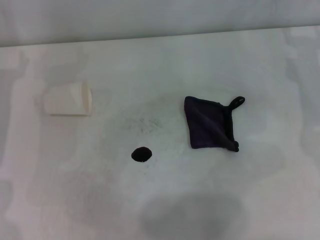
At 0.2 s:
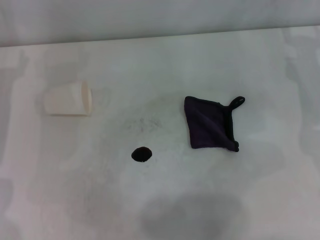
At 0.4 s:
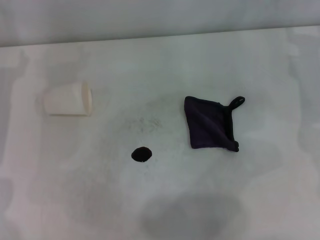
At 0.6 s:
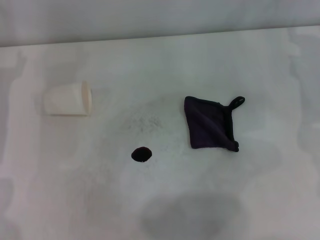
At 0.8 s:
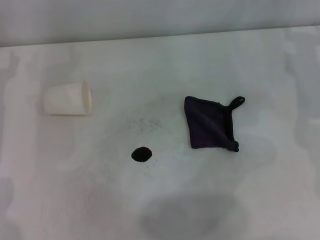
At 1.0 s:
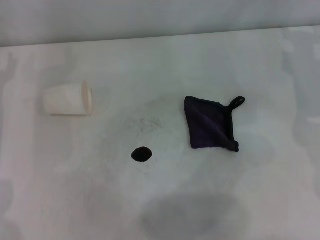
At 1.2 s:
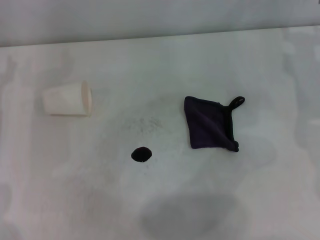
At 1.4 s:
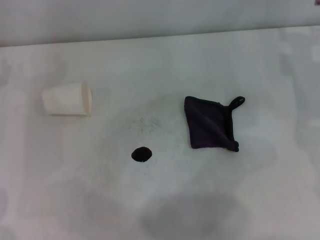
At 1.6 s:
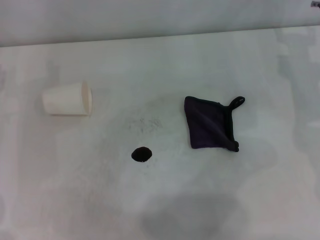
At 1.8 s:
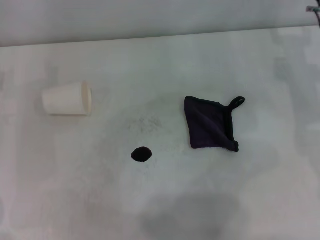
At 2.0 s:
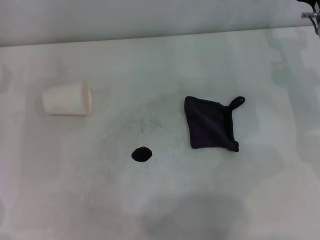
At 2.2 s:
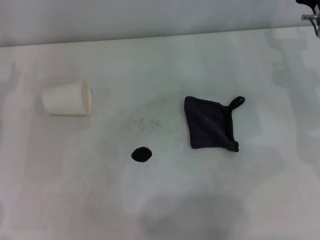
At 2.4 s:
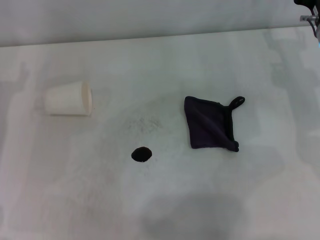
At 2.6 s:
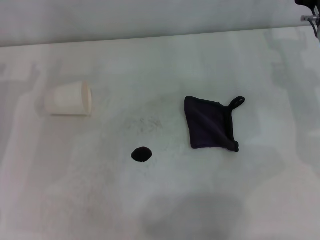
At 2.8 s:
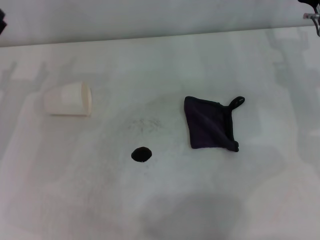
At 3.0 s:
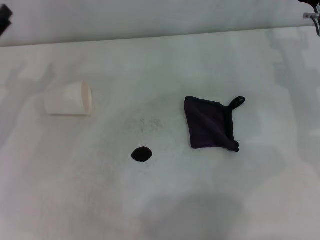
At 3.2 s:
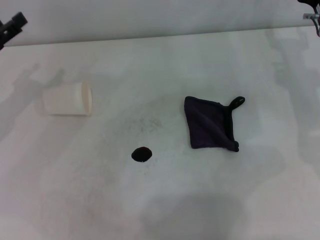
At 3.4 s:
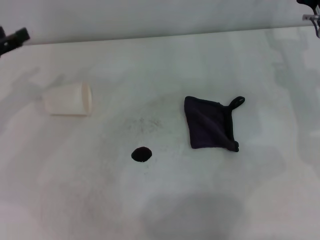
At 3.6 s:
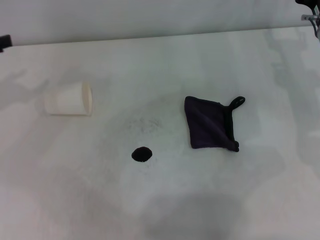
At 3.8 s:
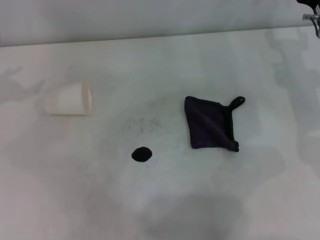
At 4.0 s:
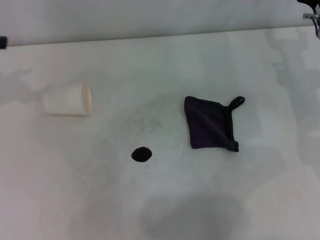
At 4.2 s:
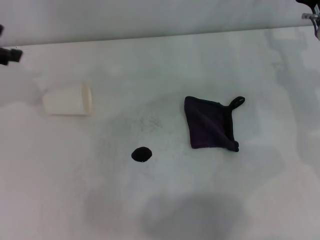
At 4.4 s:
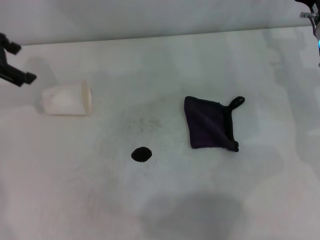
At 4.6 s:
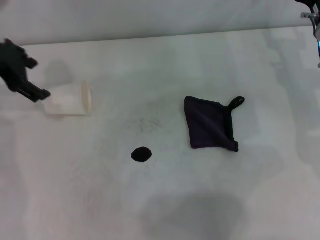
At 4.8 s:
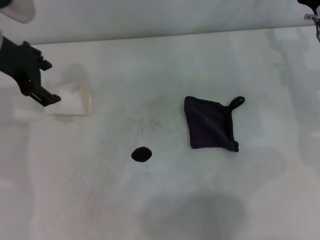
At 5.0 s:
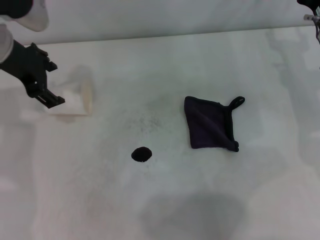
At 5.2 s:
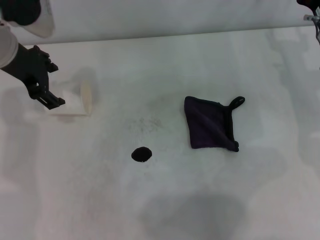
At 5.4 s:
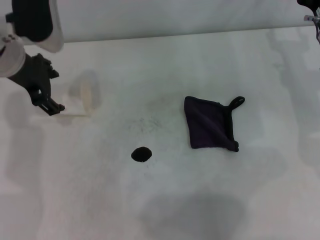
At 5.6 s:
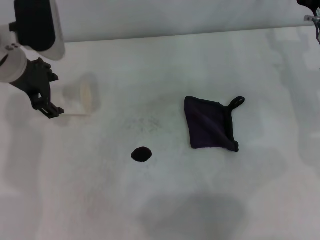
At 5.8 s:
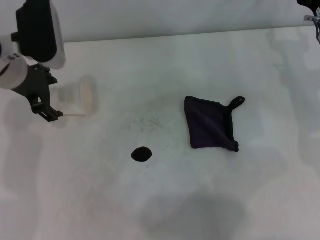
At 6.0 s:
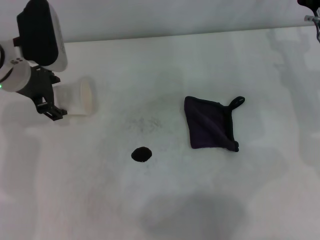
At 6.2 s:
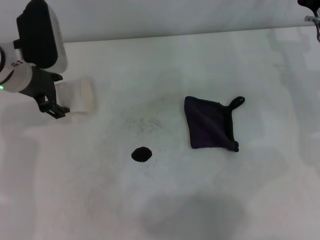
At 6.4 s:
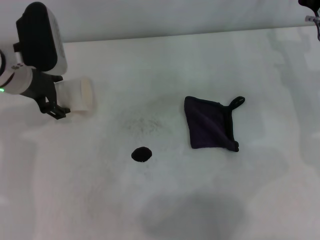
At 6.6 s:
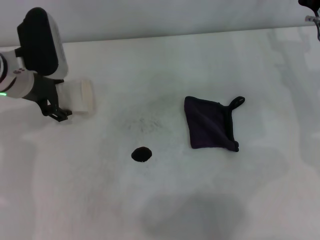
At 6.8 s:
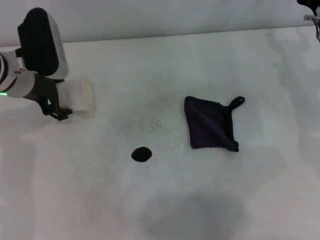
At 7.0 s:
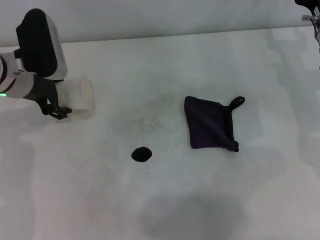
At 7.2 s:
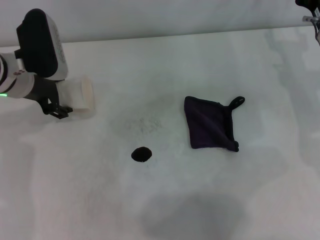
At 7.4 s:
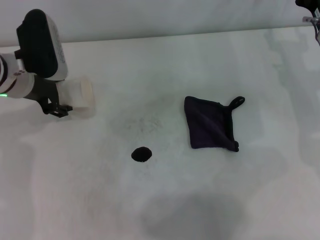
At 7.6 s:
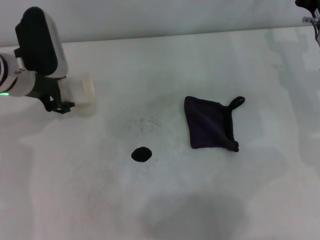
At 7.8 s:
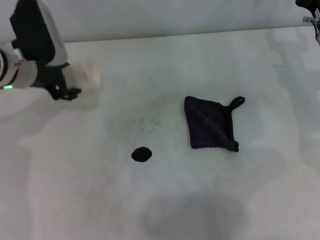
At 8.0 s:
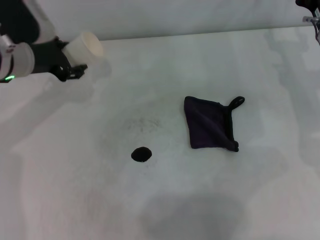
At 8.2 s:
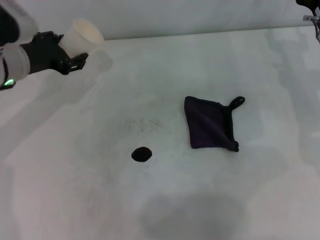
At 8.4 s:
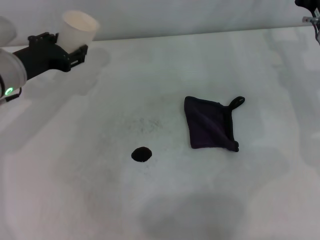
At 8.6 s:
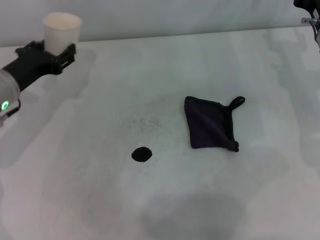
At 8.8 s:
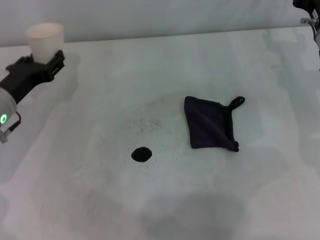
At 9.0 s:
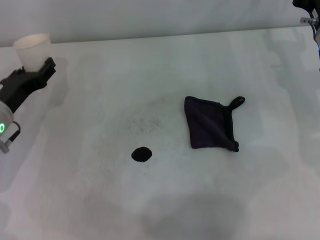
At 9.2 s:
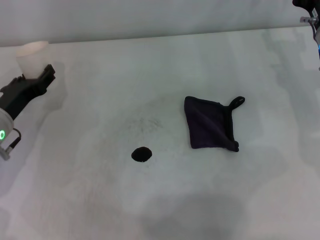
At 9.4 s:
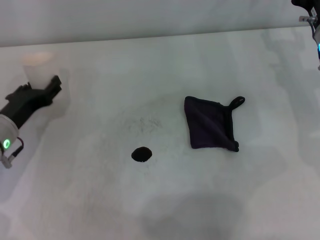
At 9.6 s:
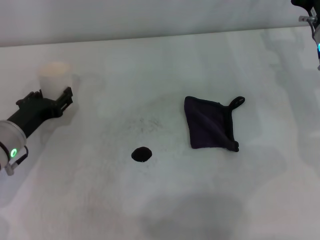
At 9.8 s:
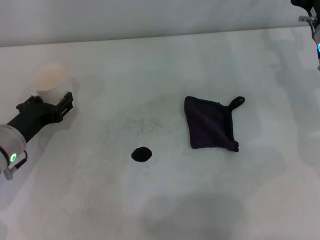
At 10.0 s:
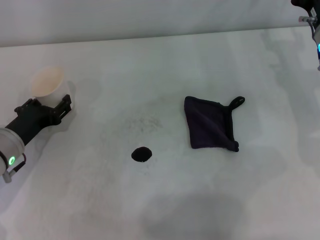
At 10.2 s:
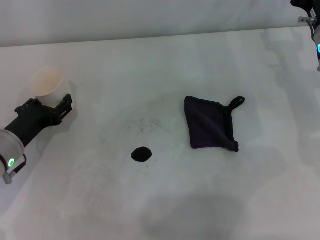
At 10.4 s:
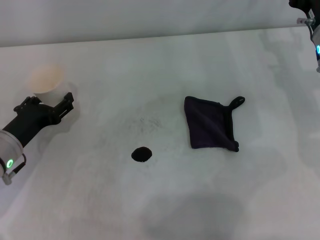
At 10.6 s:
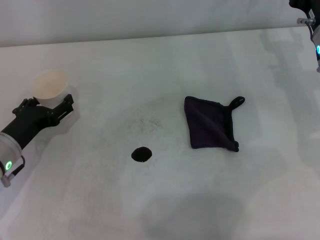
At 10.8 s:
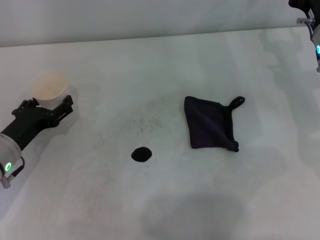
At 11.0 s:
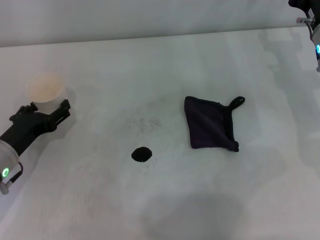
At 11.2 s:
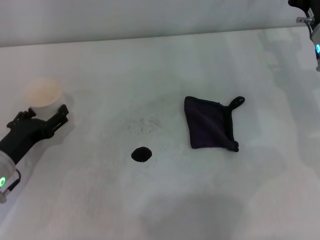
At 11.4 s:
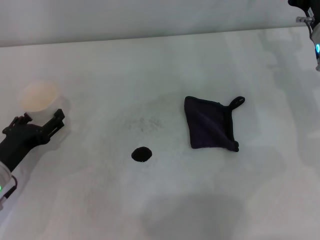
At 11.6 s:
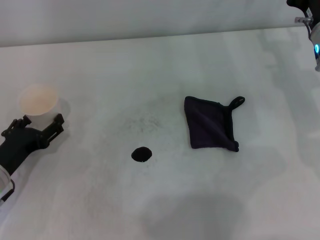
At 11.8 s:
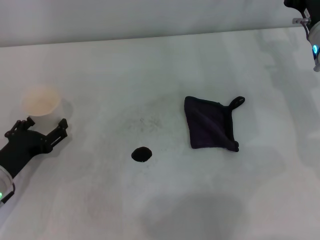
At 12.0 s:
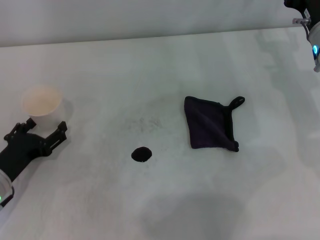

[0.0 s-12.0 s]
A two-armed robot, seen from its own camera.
Step, 0.0 to 6.0 s: Grasp the paper cup with the left gripper.
Step, 6.2 to 11.8 s: Stand the paper cup upright with the left gripper.
3.0 to 4.4 s: The left gripper heads upward and forward, covering about 15 cm.
4.4 to 6.0 s: The left gripper heads downward and to the right, covering some 10 cm.
6.0 to 7.6 s: The left gripper closes its fingers.
7.6 to 9.0 s: The left gripper moves downward and backward, about 10 cm, and closes up.
9.0 to 10.4 s: The grippers move only a little.
10.4 to 12.0 s: The left gripper changes place by some 5 cm, and opens up.

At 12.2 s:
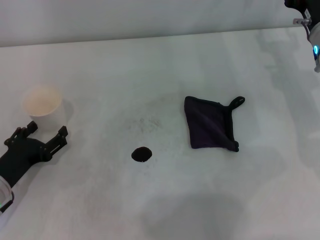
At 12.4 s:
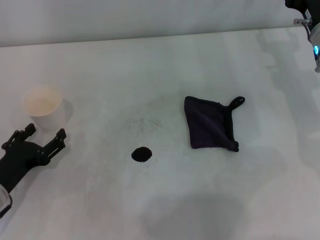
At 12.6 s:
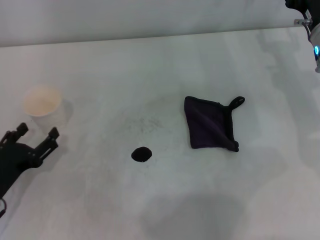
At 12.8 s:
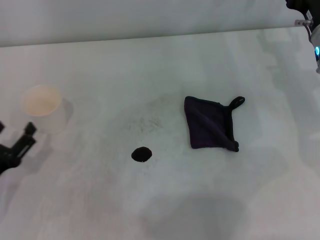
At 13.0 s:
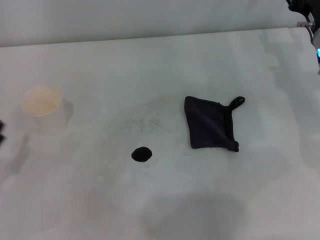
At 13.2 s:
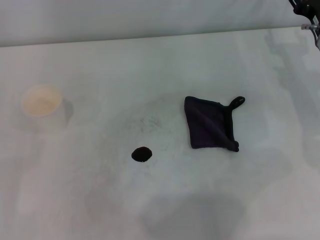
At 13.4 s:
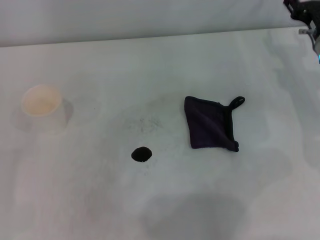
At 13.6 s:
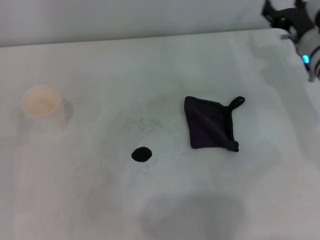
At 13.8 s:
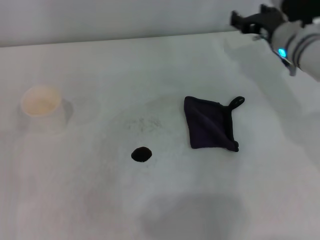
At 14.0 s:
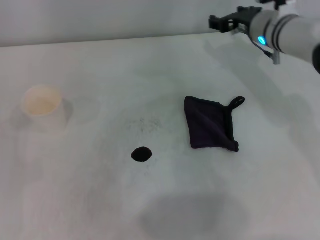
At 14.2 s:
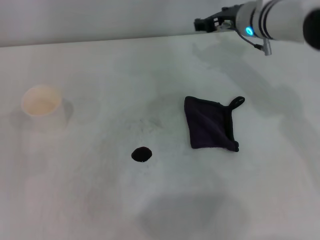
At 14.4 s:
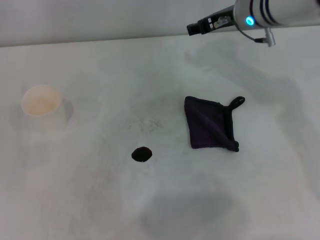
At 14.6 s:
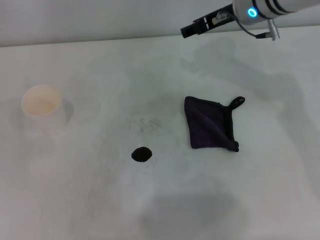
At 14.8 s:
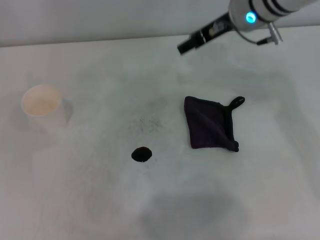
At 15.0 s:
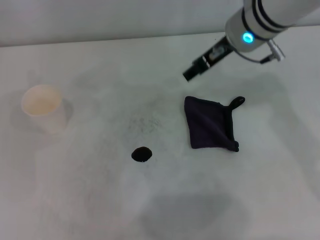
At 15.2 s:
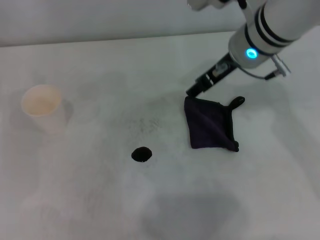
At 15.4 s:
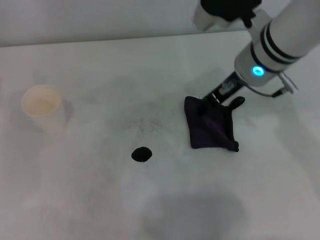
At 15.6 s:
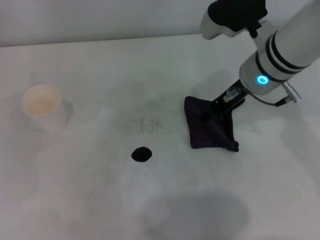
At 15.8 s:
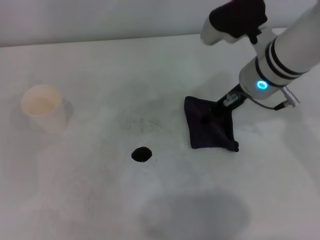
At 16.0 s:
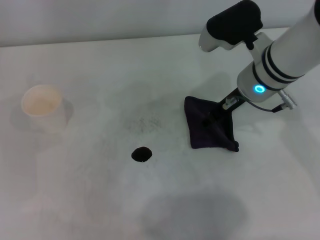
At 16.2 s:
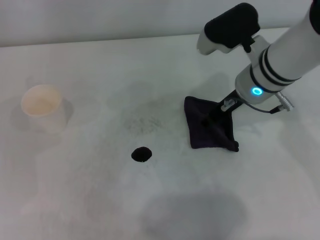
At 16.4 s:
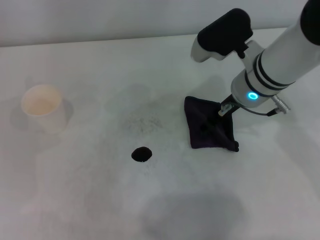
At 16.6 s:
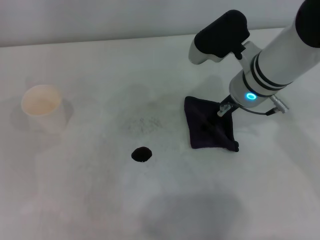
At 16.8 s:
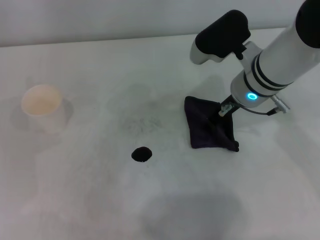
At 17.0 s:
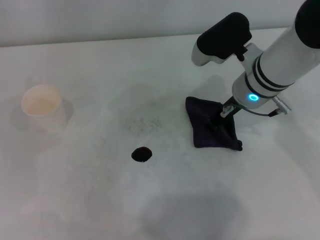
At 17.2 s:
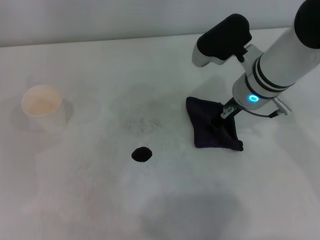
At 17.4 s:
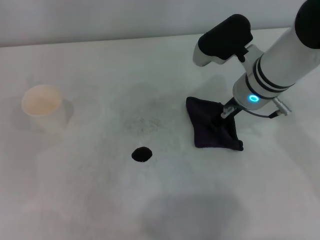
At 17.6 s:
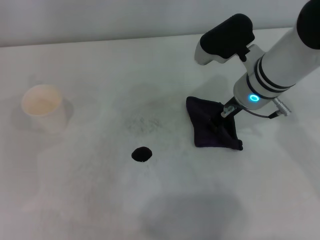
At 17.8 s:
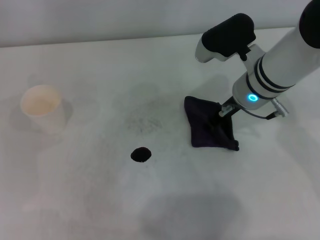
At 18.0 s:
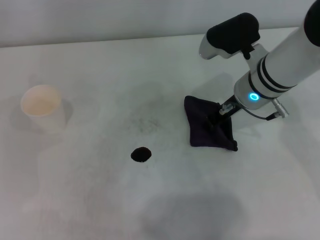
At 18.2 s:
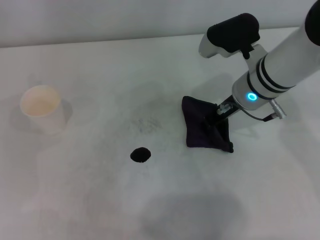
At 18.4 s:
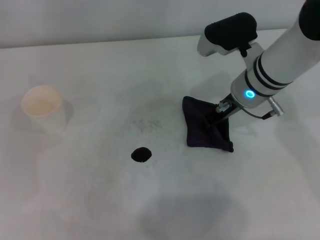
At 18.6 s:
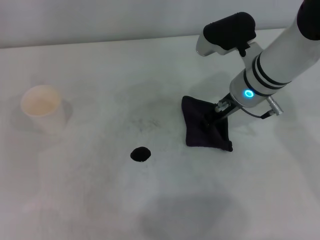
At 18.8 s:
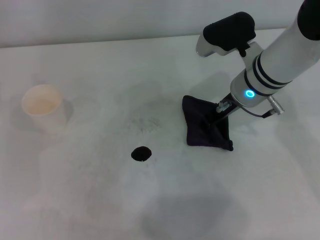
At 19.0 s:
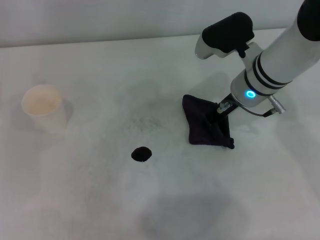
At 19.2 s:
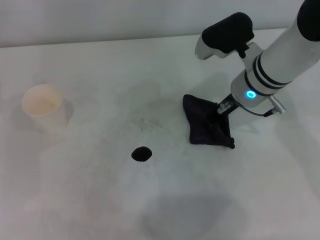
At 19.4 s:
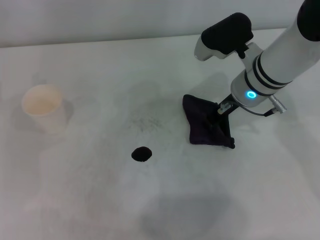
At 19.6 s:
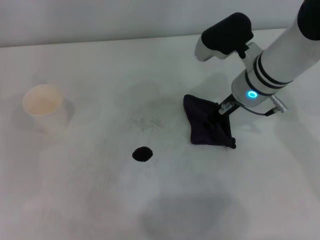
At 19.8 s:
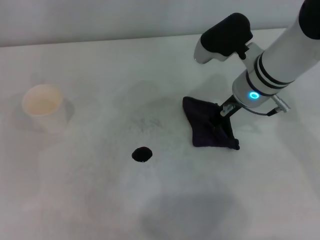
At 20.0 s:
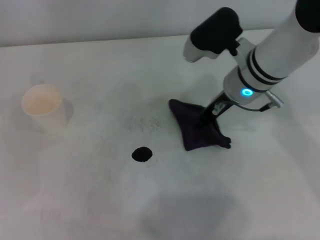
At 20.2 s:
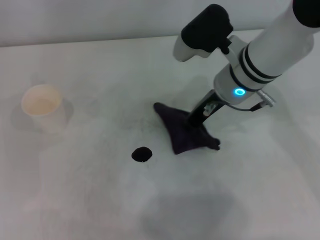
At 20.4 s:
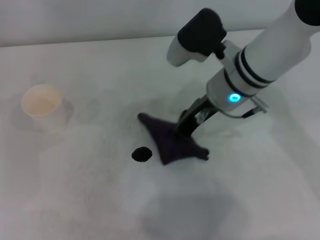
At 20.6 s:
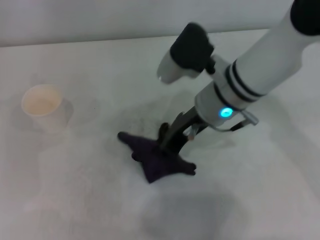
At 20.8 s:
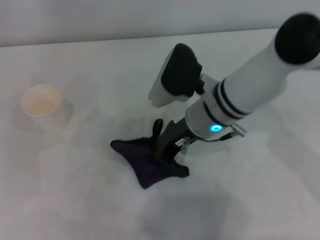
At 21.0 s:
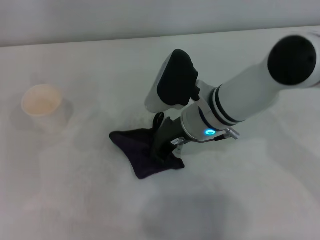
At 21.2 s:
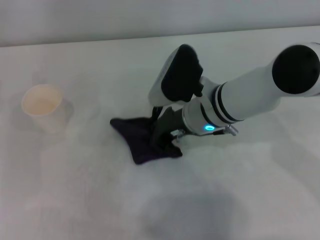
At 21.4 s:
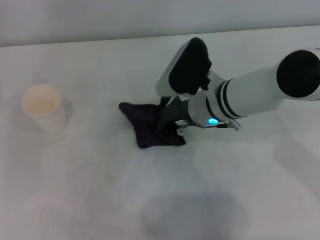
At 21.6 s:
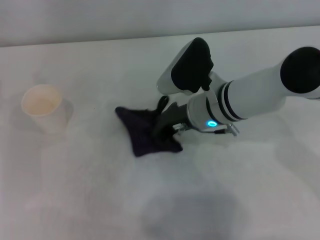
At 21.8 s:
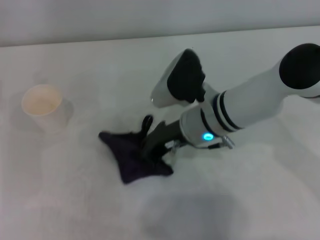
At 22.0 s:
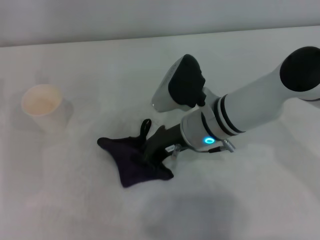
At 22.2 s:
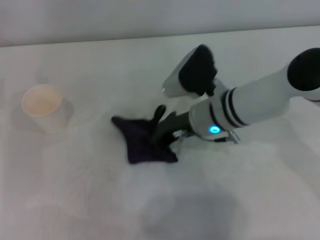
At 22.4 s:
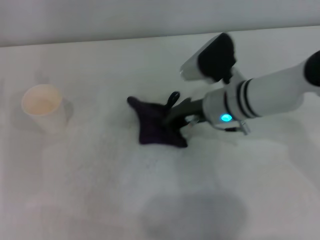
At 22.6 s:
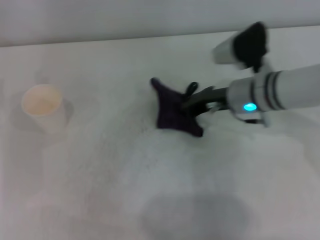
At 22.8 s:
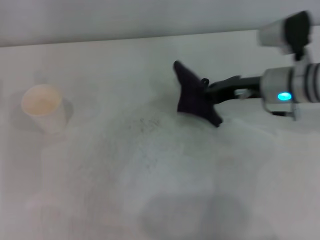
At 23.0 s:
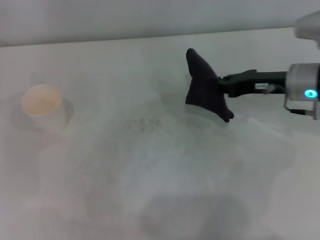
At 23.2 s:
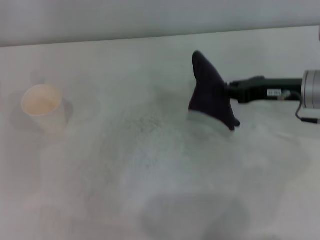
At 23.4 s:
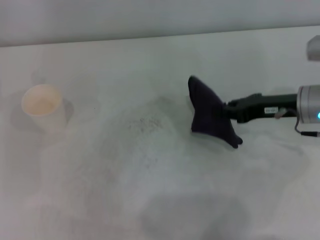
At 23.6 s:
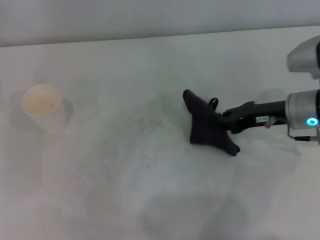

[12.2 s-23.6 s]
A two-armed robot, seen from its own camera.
Step, 12.2 to 17.6 s: Grasp the rag with the right gripper.
Step, 17.8 to 23.2 s: Wipe the stains off the table with the right gripper.
12.2 to 13.6 s: The left gripper shifts roughly 10 cm to the left.
13.6 to 15.0 s: The left gripper moves forward, approximately 10 cm, while the right gripper shifts about 20 cm to the left and upward.
15.0 to 16.4 s: The right gripper goes about 5 cm downward.
16.4 to 17.8 s: The right gripper closes its fingers.
17.8 to 19.4 s: There are only small adjustments of the grippers.
19.4 to 20.8 s: The right gripper is displaced to the left by approximately 5 cm.
20.8 to 22.2 s: The grippers make only small movements.
22.2 to 23.6 s: The right gripper heads to the right, covering approximately 15 cm.
